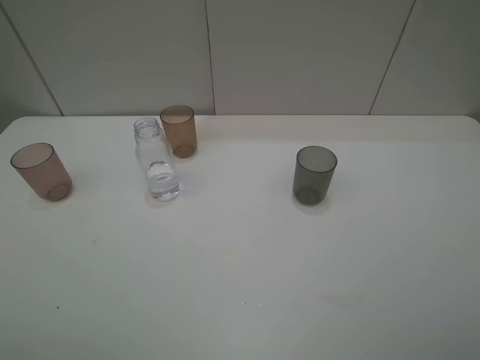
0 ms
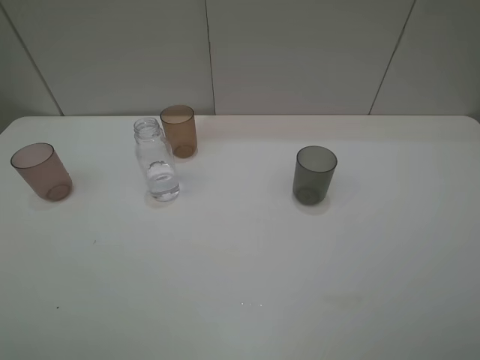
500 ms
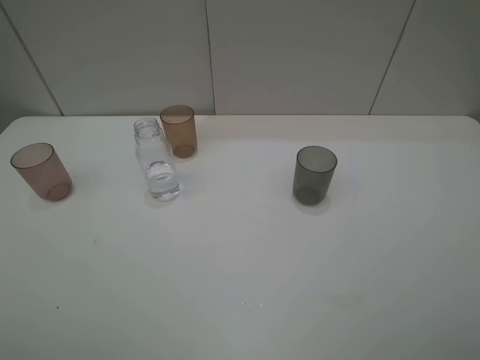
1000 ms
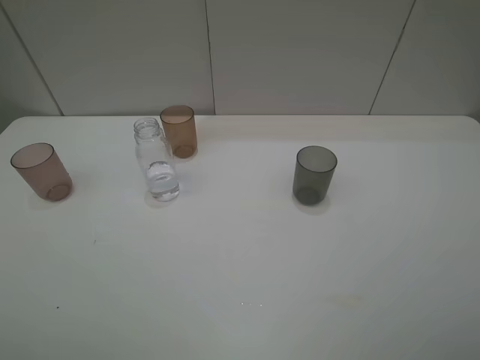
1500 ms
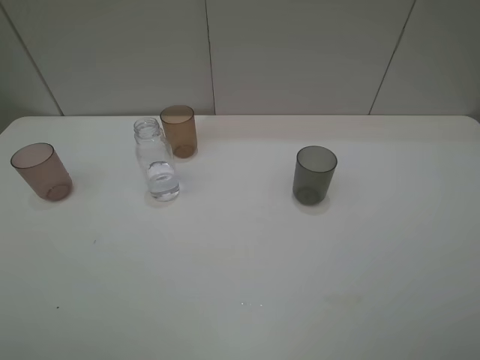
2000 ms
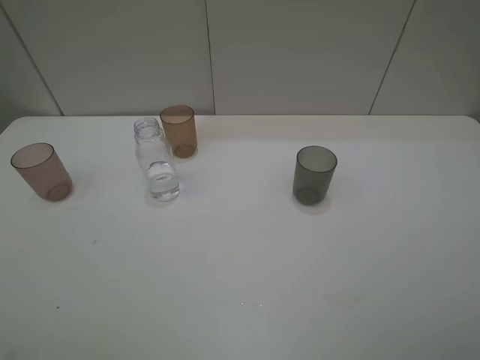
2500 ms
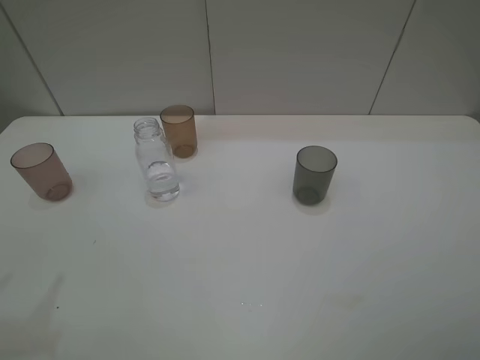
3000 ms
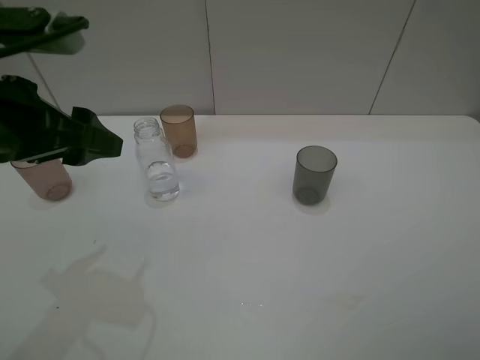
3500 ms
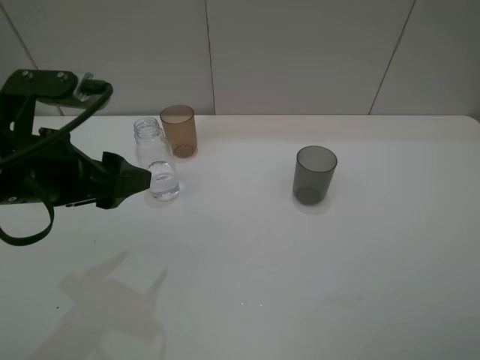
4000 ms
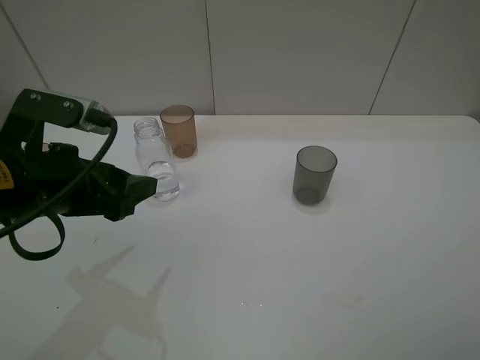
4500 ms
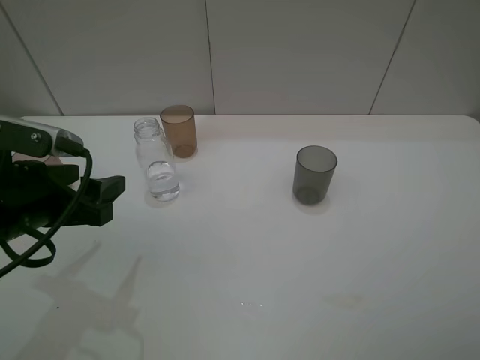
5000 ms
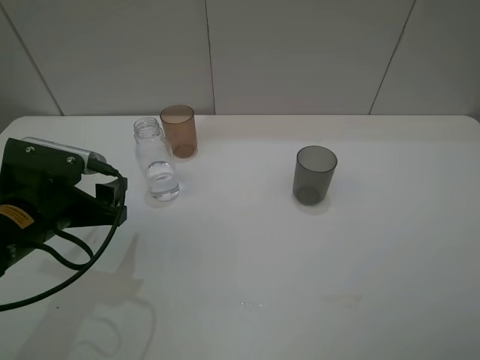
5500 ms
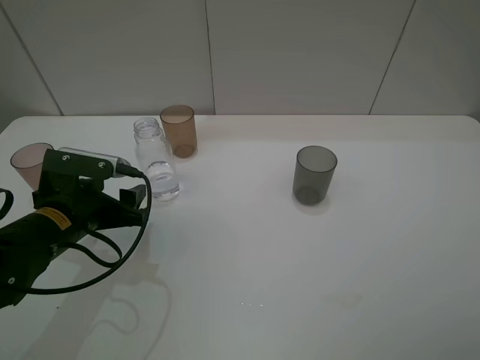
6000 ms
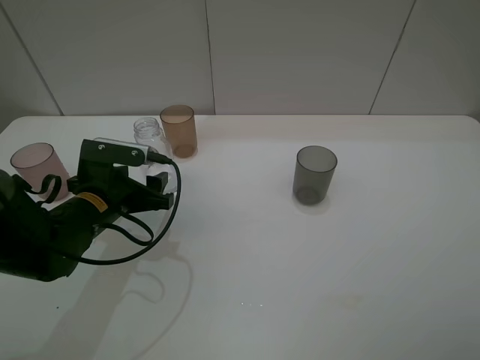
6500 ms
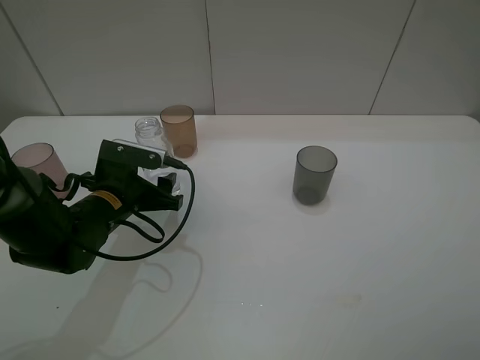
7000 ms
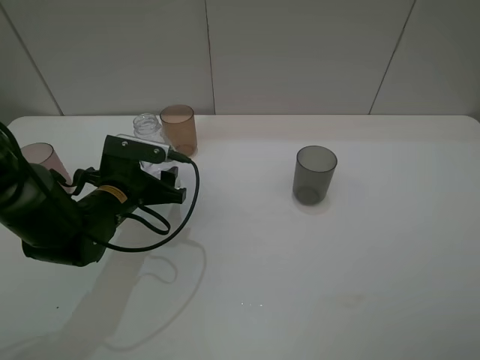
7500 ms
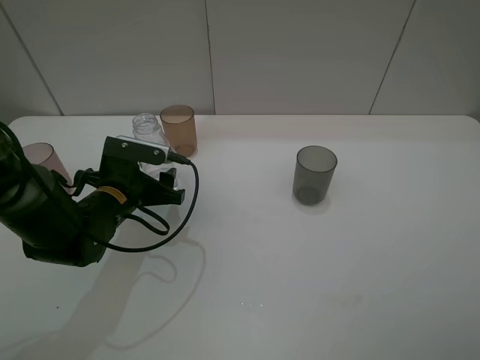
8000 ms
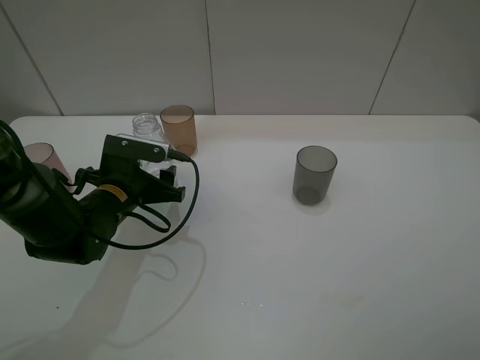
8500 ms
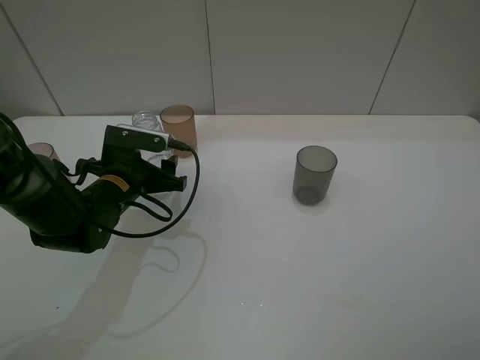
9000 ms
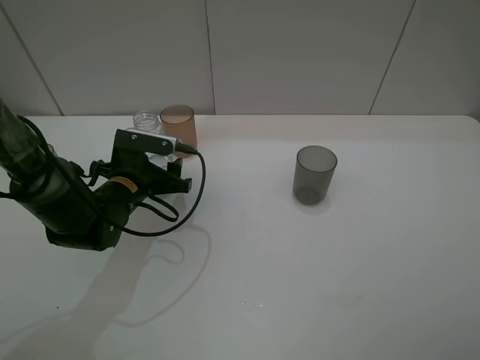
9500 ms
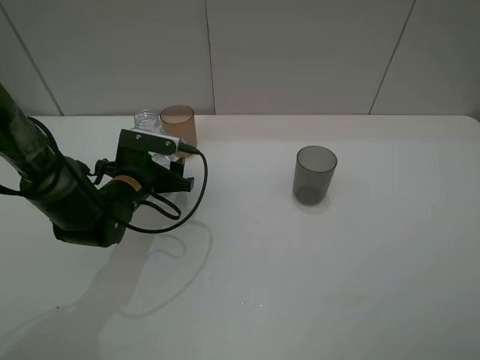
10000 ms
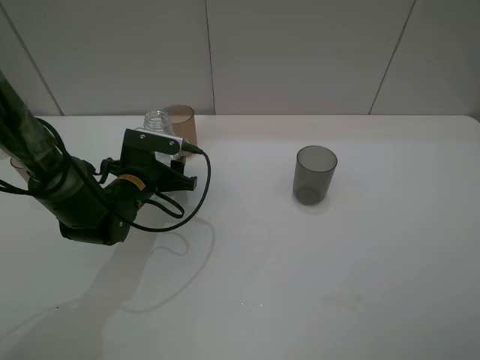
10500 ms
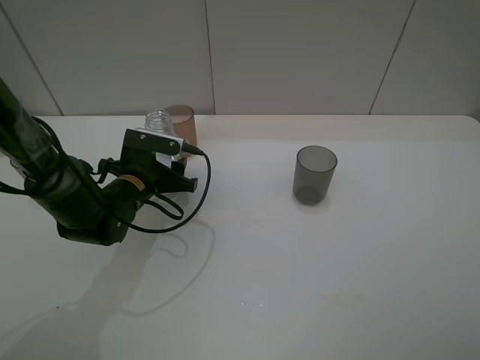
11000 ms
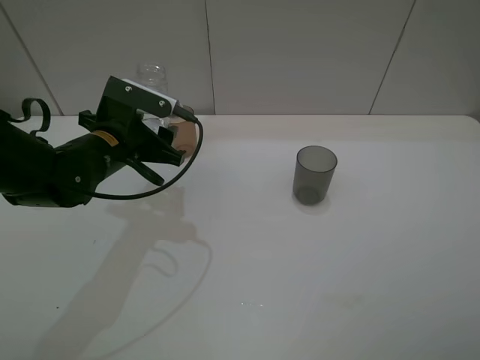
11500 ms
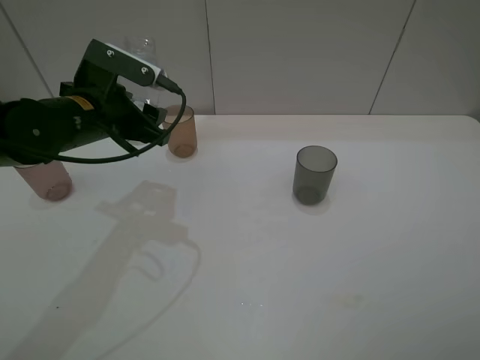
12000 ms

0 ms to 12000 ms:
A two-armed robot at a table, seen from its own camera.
Task of the whole recording: pick up the bottle filled with water and pour water into the middle cup of the three cups.
Step, 0 ms to 8000 ms: Grasp the transparent bottle with the left gripper.
0 ms to 2000 ms: Both grippers stay about where they are.
2000 ms to 4000 ms: The left gripper is displaced forward and to the right by about 20 cm.
4000 ms to 6000 ms: The left gripper is displaced downward by roughly 10 cm.
6000 ms to 8000 ms: The left gripper heads forward, covering roughly 5 cm.
8000 ms to 10000 ms: The grippers move only a little.
10000 ms to 12000 ms: The left gripper travels upward by approximately 15 cm, and closes.

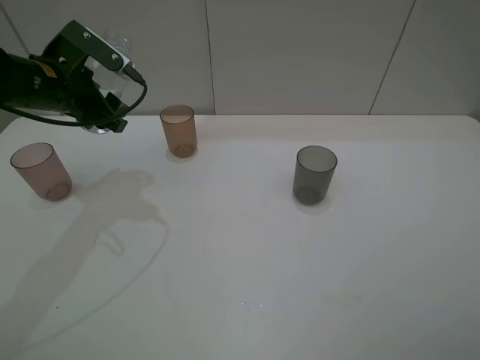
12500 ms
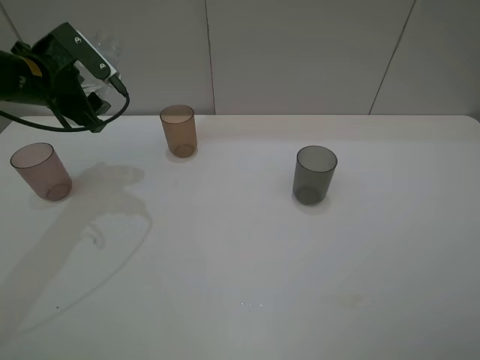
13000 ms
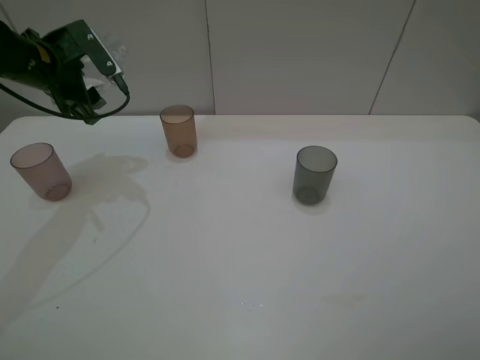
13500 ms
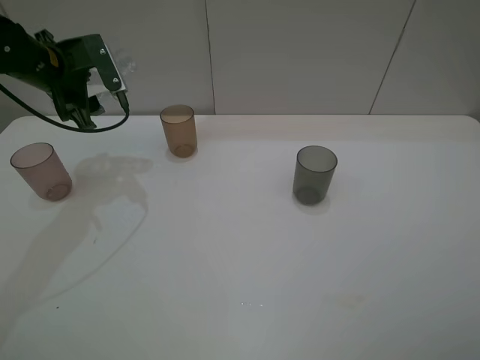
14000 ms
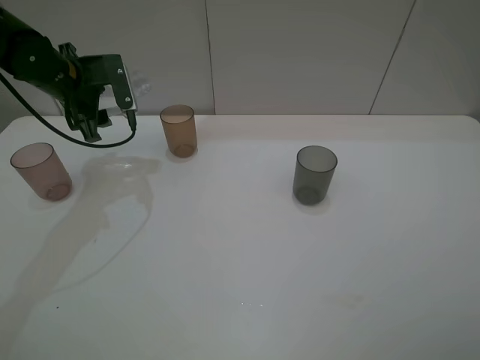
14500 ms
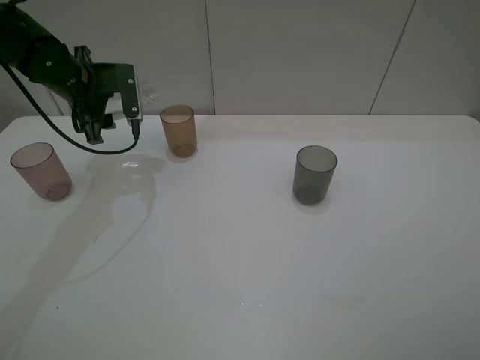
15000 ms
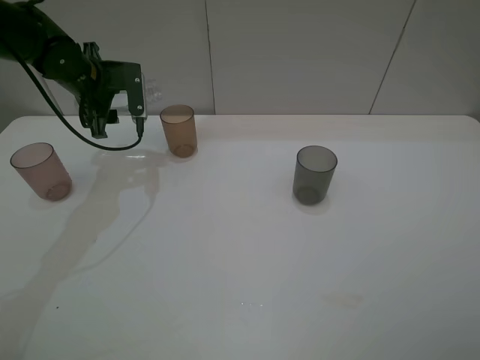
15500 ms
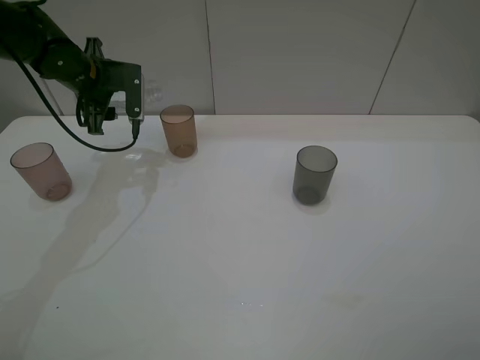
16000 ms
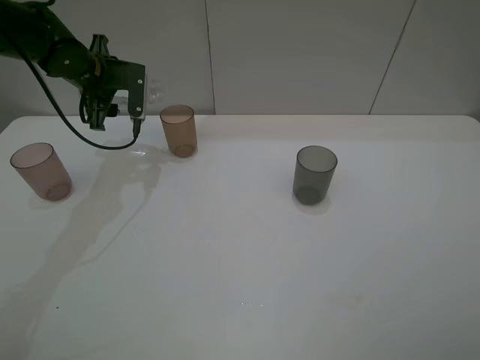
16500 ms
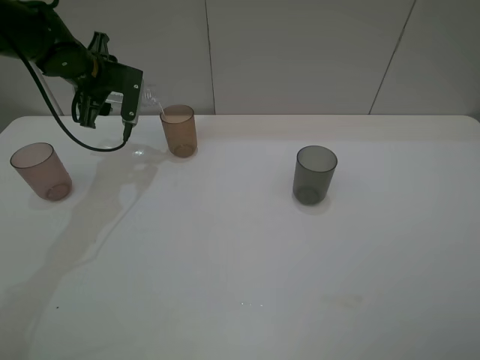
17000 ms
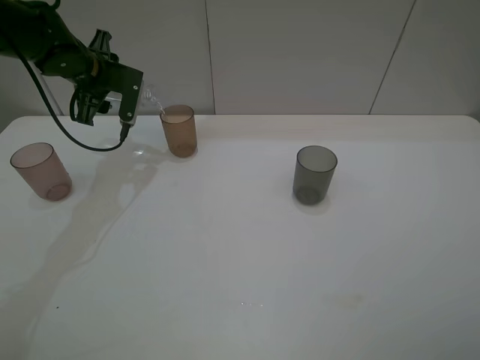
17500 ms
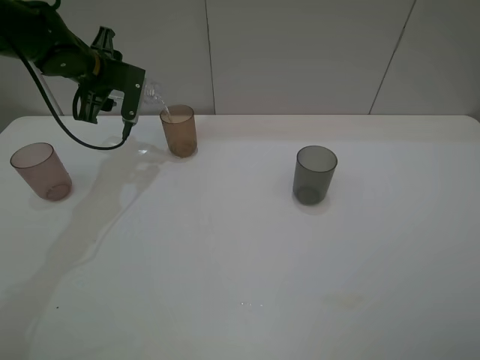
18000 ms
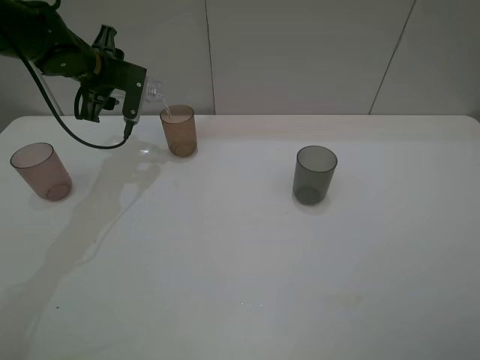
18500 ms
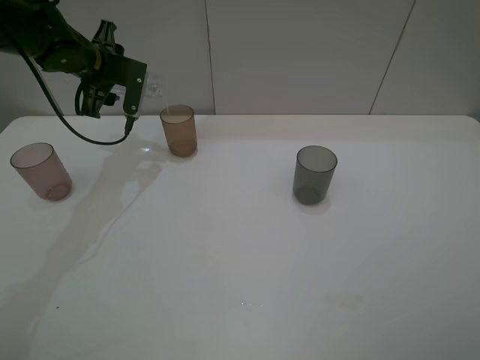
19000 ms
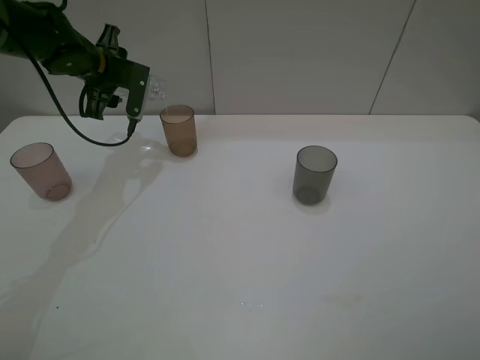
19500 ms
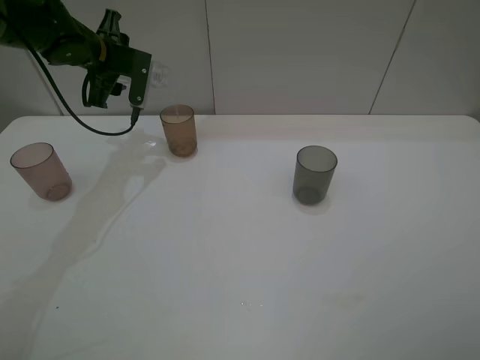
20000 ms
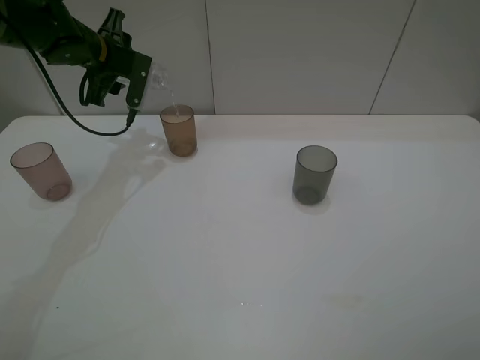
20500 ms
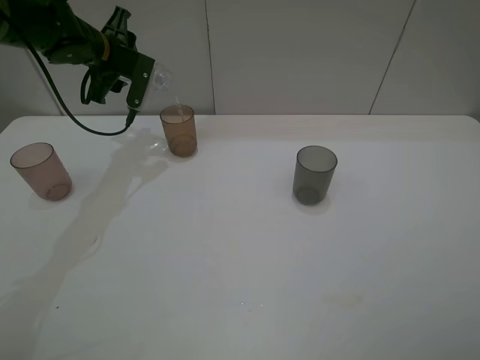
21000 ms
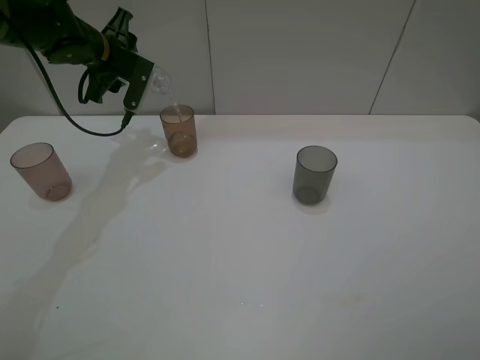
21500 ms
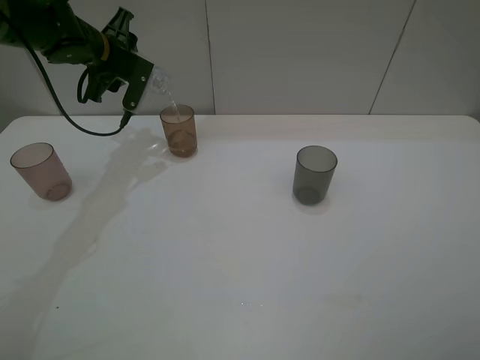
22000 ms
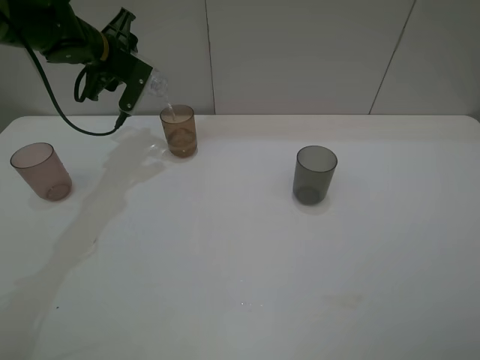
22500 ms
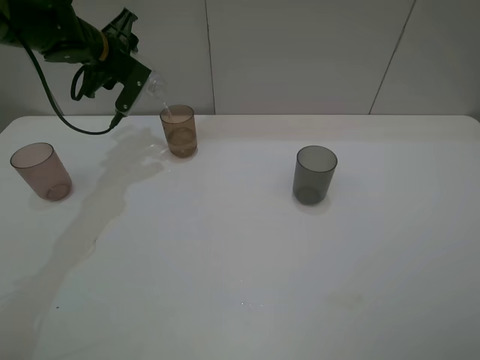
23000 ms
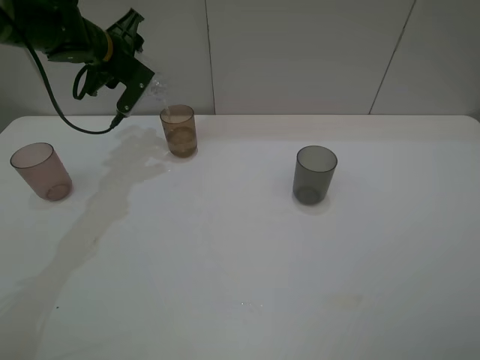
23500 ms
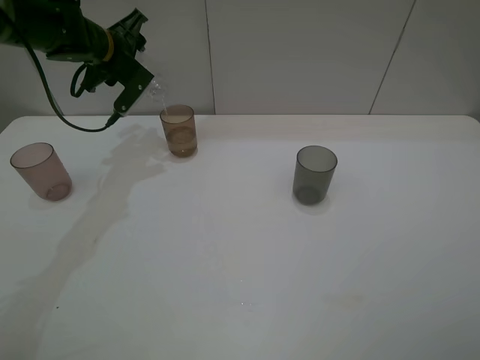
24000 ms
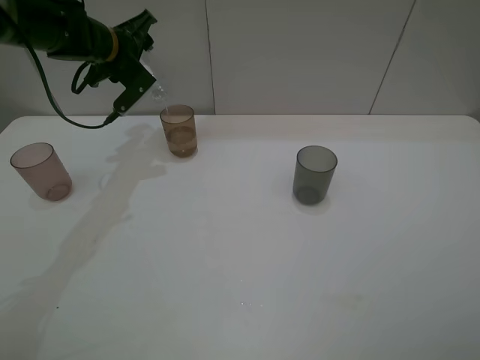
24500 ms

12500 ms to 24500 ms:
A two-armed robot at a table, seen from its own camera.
Task of the whole recording: pick up the bottle filled with water and pour water into the middle cup of the three cups.
Step, 12500 ms to 16500 ms: Pour water from transparent bottle to brown cup with the left gripper.
12500 ms to 14500 ms: The left gripper travels forward by some 5 cm.
14500 ms to 16500 ms: There are only small adjustments of the grippers.
16500 ms to 20500 ms: The grippers make only small movements.
20500 ms to 22500 ms: The grippers stay close to where they were, moving slightly.

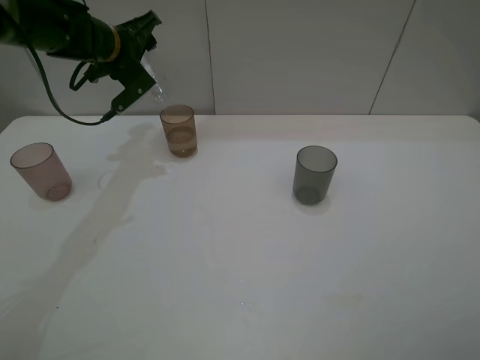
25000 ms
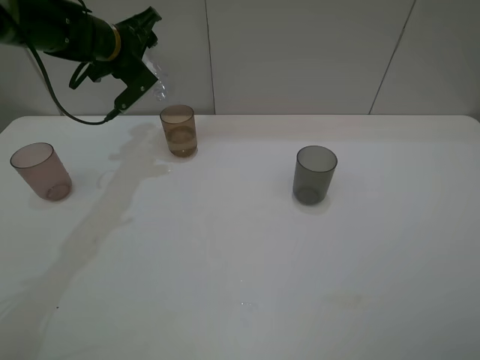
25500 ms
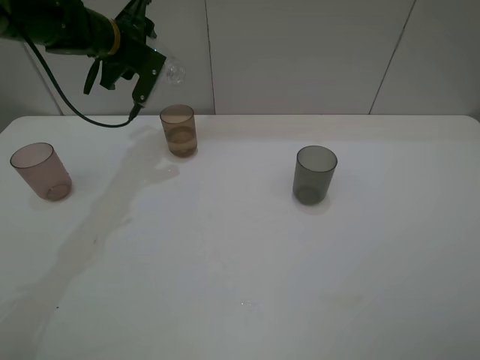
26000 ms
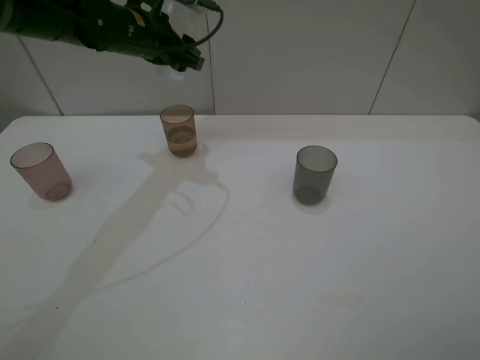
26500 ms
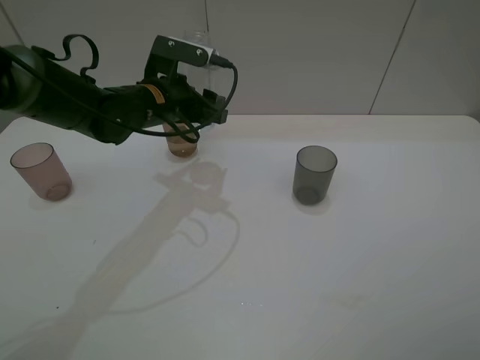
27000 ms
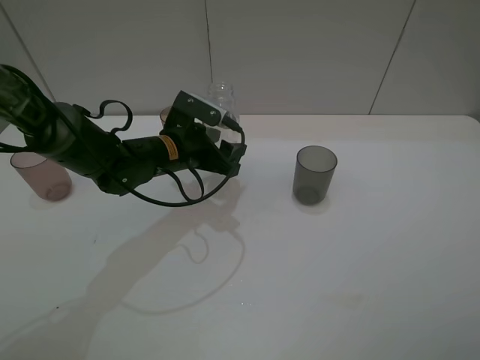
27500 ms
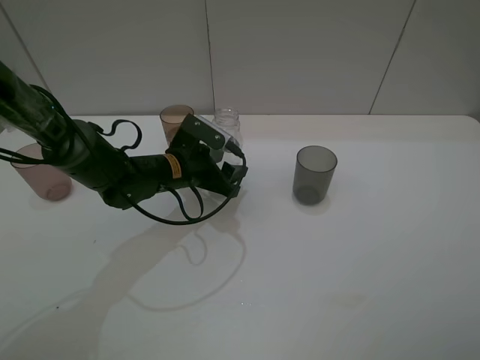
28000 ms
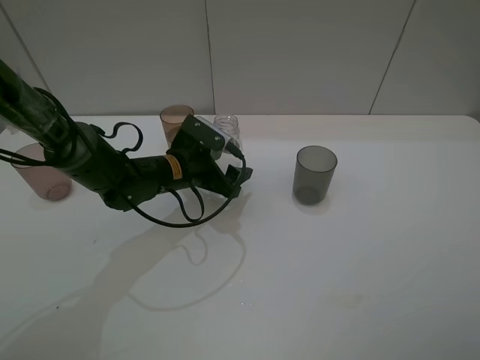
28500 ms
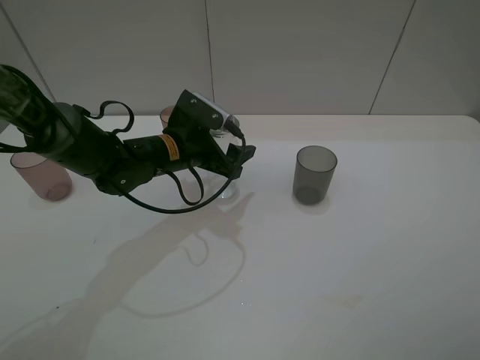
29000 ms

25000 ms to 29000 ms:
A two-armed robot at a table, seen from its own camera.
Task of the whole recording: pick up the bottle filled with water and pour water into the middle cup of the three cups.
25000 ms to 27000 ms: The left gripper shifts about 15 cm backward and to the right.
27000 ms to 29000 ms: The left gripper opens up.
